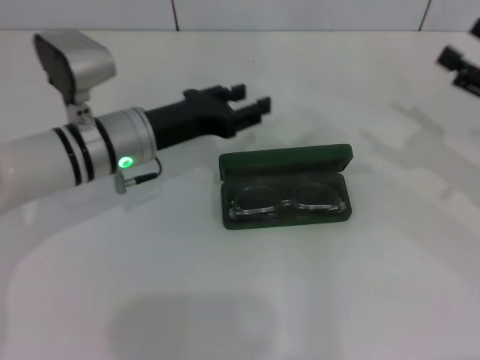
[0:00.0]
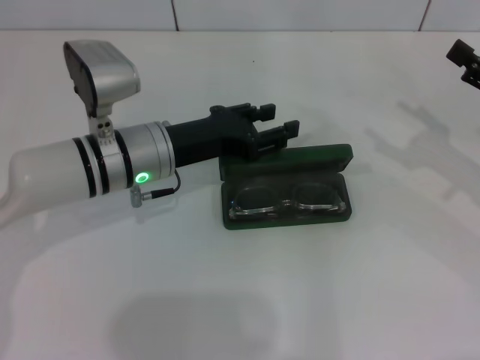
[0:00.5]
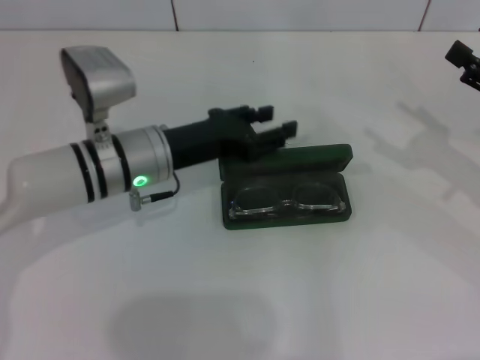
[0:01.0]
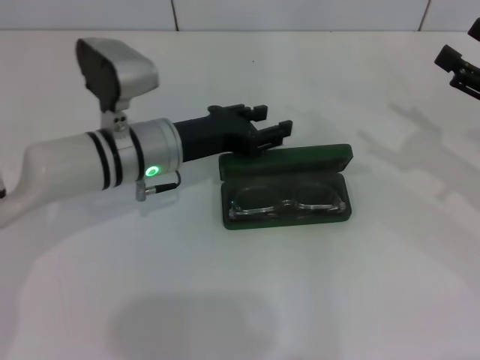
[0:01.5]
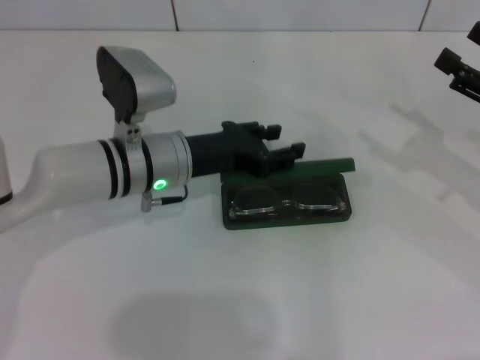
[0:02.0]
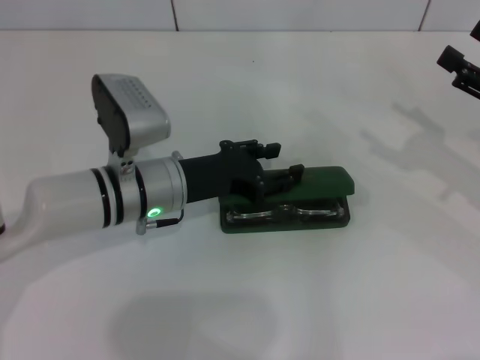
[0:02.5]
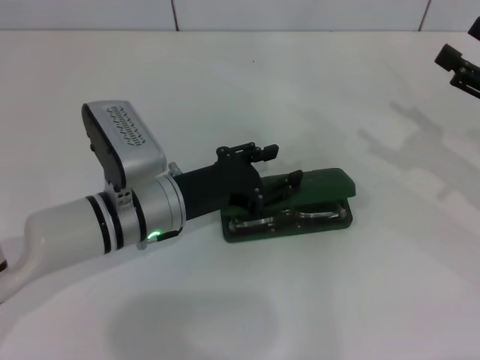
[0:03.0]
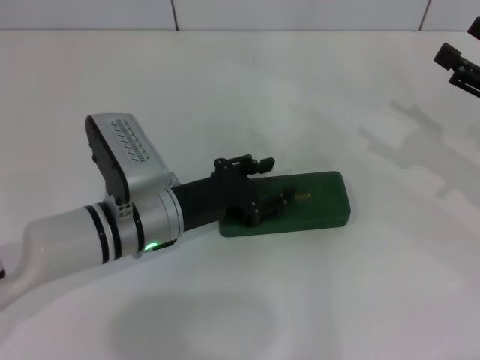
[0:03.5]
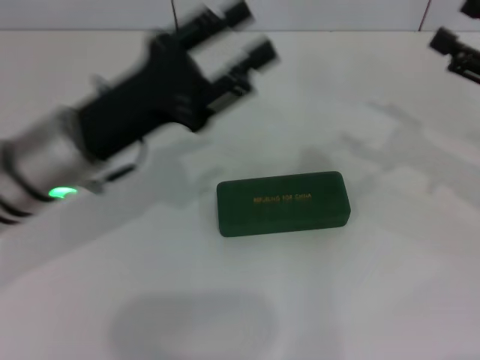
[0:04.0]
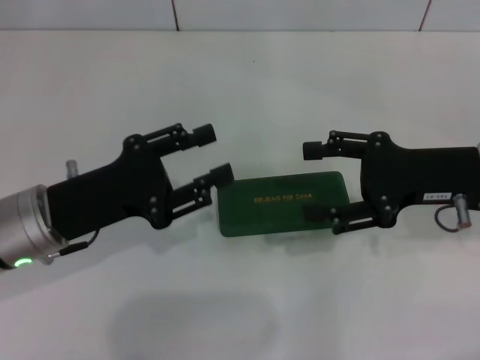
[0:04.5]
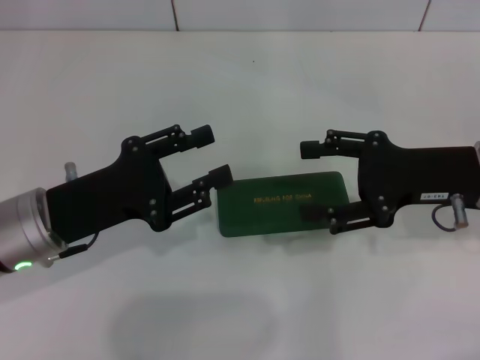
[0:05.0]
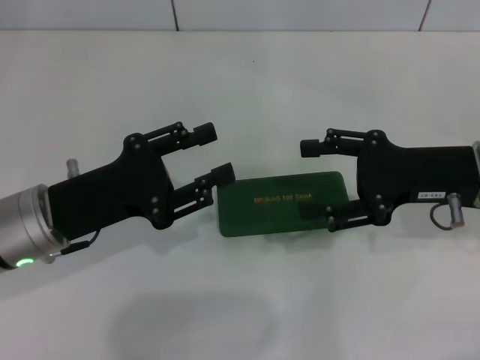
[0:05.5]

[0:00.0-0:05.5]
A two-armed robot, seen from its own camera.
Step, 0:00.0 to 0:03.5: Close the glasses case with your left hand.
0:00.0 to 0:02.0: The grippers move only a little.
0:02.0 to 0:03.5: The left gripper ends up some 5 cm from where it was.
0:03.5 to 0:05.5: The left gripper is displaced to the left and upward by approximately 10 cm, while the right gripper is displaced to the left by roughly 10 cm.

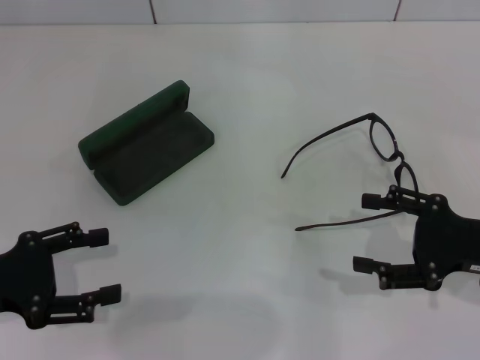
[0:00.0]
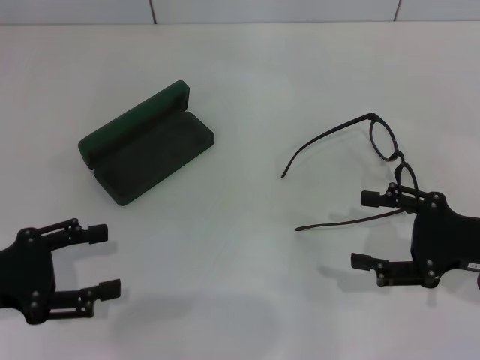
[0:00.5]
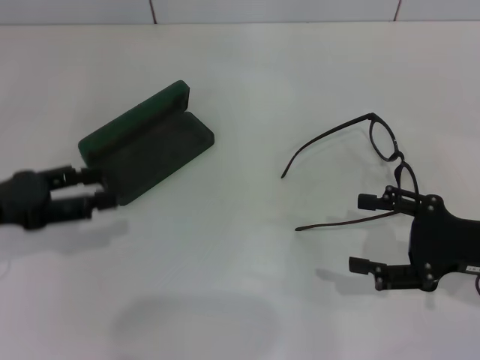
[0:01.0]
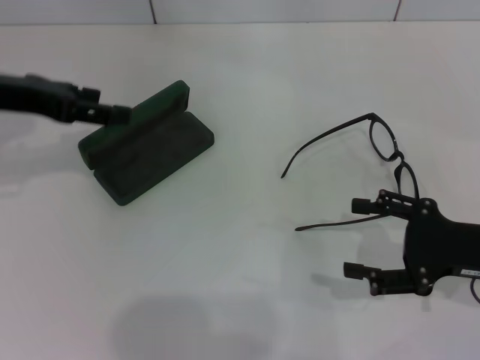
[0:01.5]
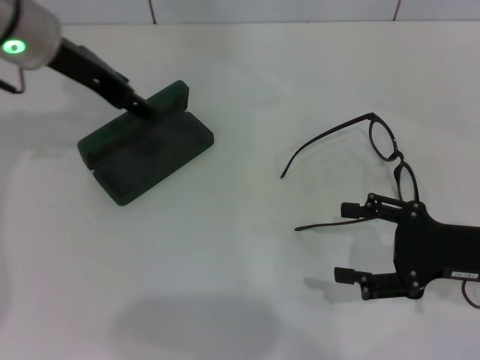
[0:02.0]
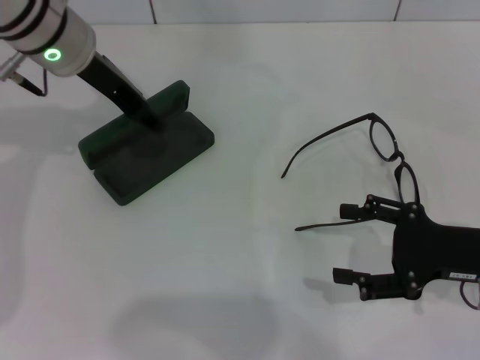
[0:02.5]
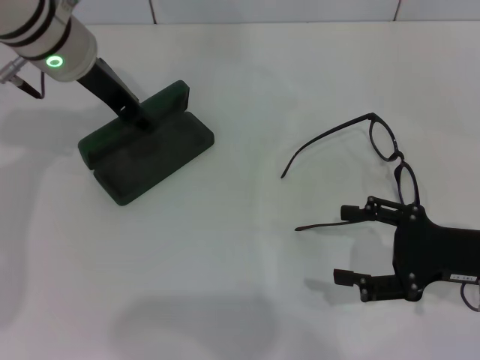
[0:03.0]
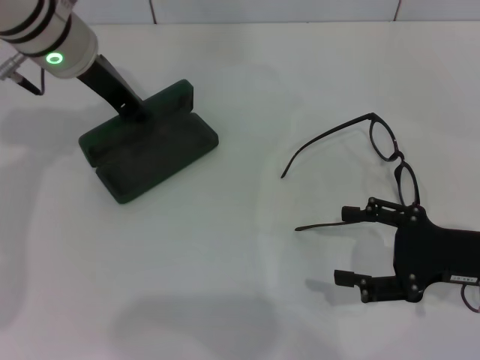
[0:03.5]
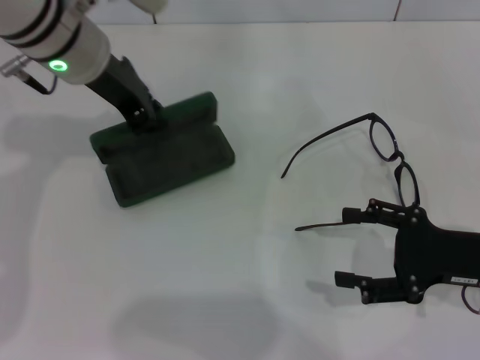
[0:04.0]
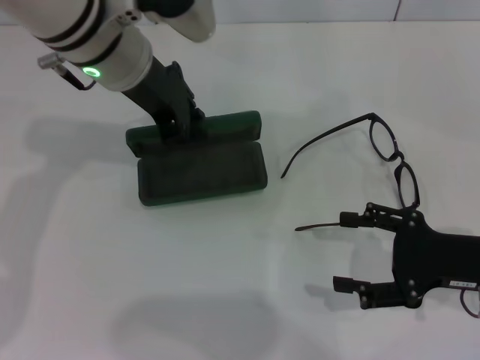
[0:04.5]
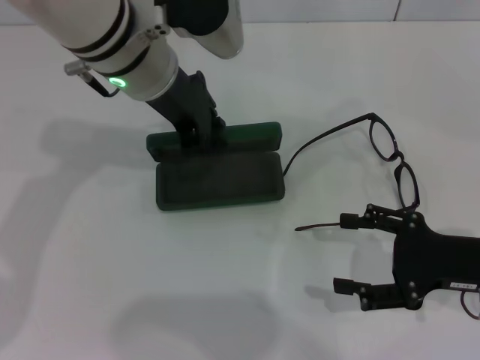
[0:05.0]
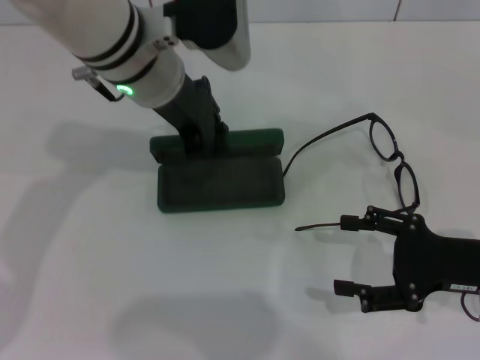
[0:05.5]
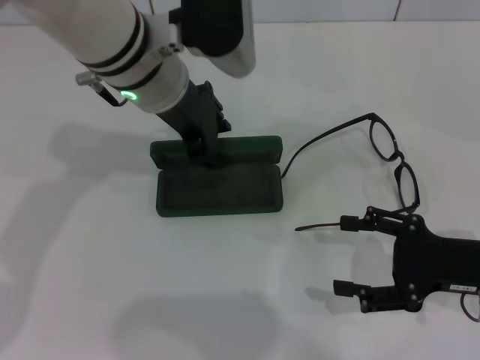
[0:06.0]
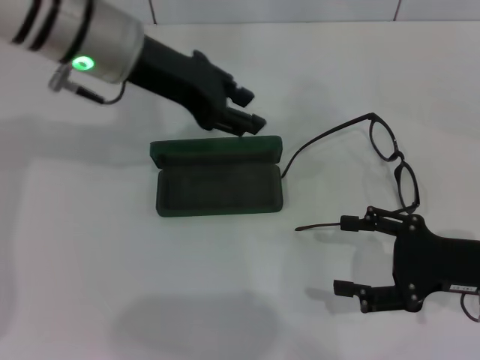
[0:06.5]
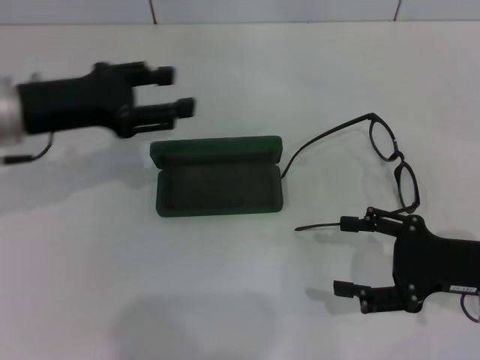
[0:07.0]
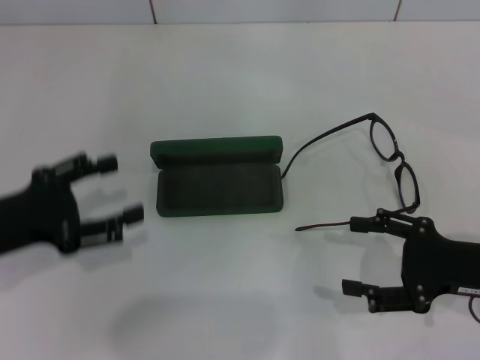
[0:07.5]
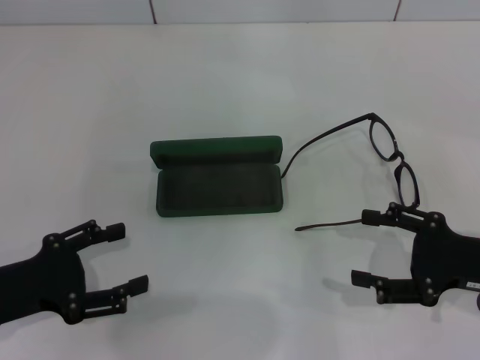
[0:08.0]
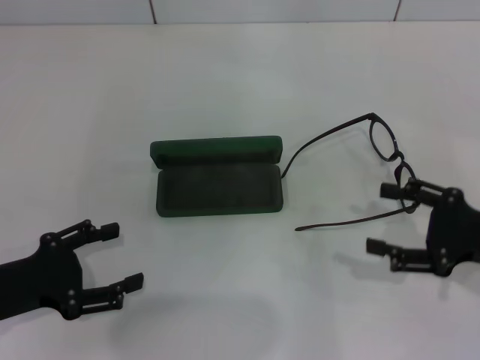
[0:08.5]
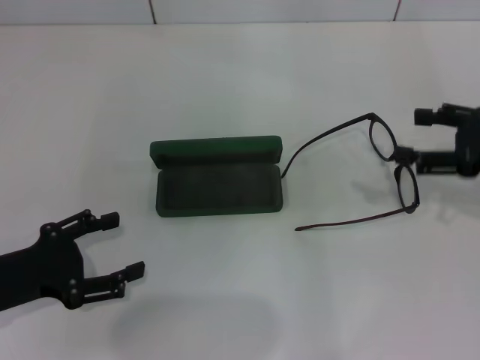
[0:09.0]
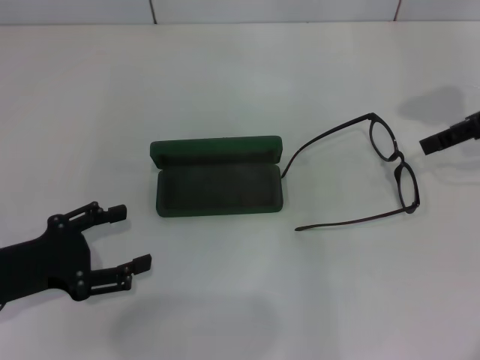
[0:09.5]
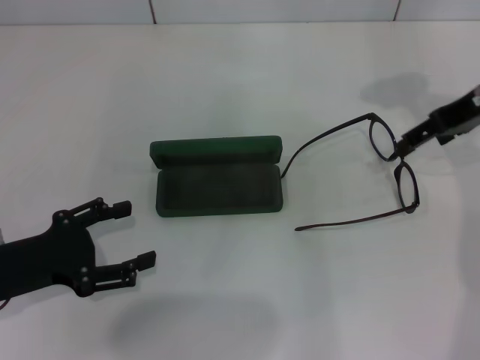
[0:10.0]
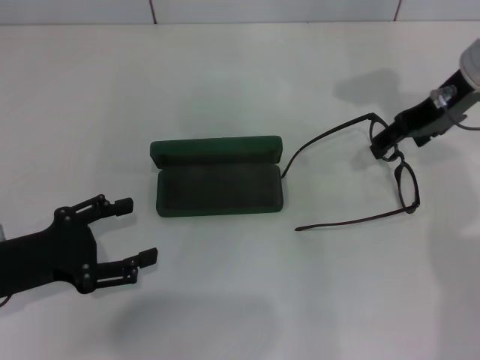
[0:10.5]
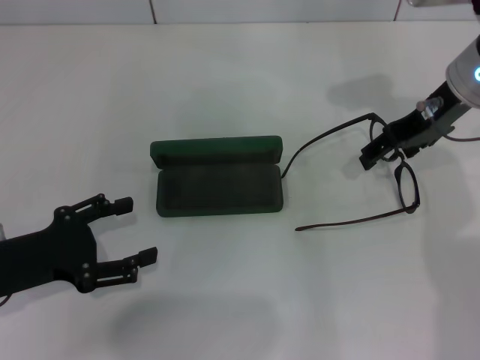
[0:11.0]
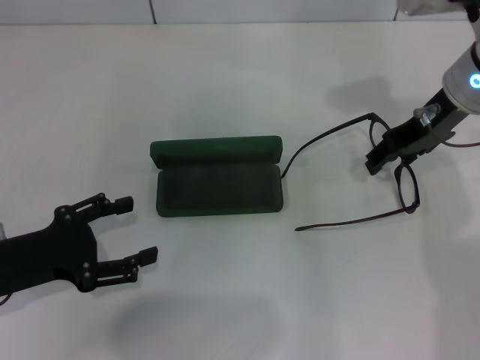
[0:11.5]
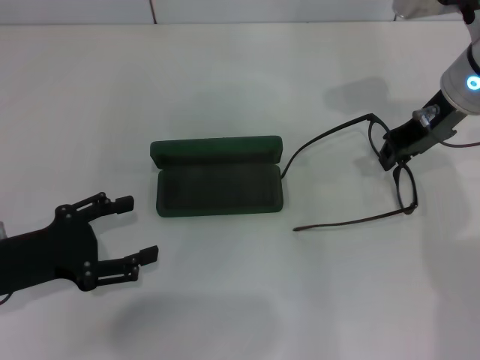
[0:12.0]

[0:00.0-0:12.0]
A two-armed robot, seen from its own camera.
Step, 0:00.0 to 0:03.0: Grab the glasses case with your left hand.
Step, 0:03.5 to 0:05.5: Place the glasses case in the center of the table with your left hand.
0:00.0 to 0:02.0: The left gripper travels forward, upward and to the right by approximately 25 cm.
0:02.0 to 0:04.0: The left gripper closes its fingers.
0:04.0 to 0:06.0: The left gripper goes some 5 cm to the right.
0:06.0 to 0:08.0: The left gripper travels to the left, backward and downward by some 30 cm, and opens its fingers.
0:08.0 to 0:10.0: The right gripper shifts roughly 20 cm forward and upward.
0:10.0 to 0:12.0: The right gripper goes some 5 cm to the left, and closes.

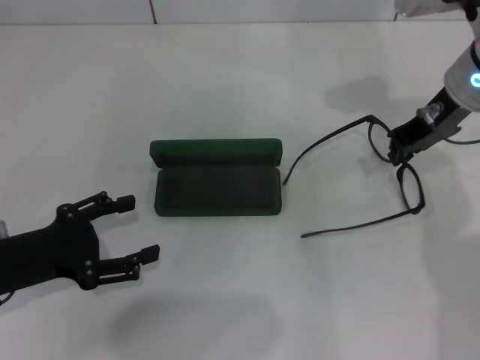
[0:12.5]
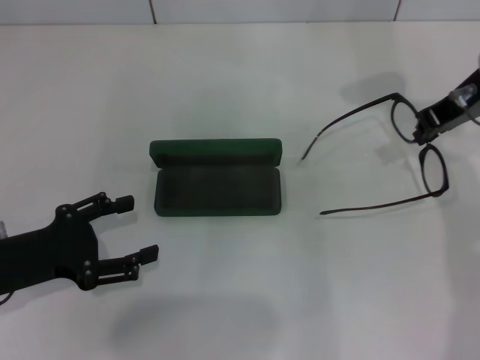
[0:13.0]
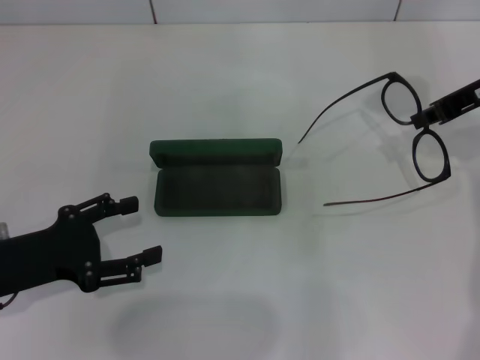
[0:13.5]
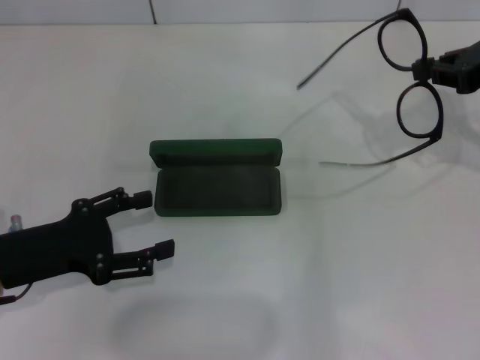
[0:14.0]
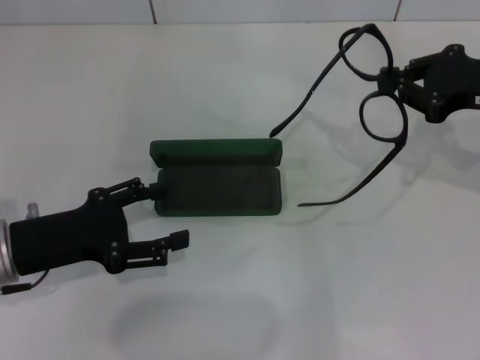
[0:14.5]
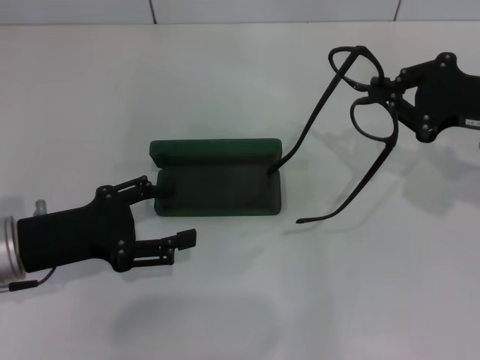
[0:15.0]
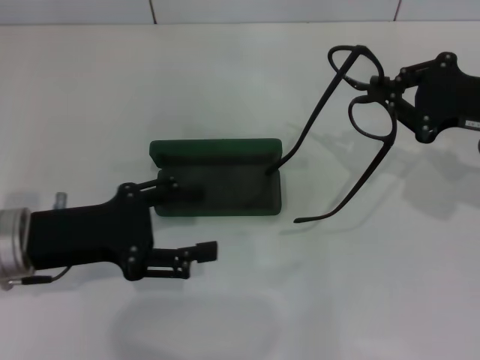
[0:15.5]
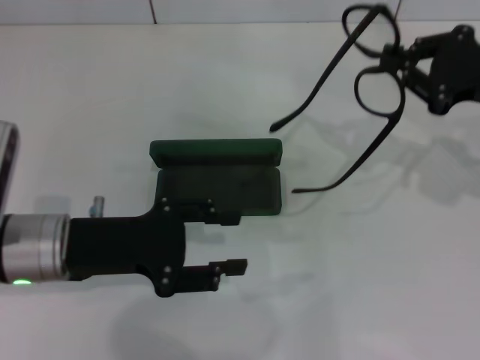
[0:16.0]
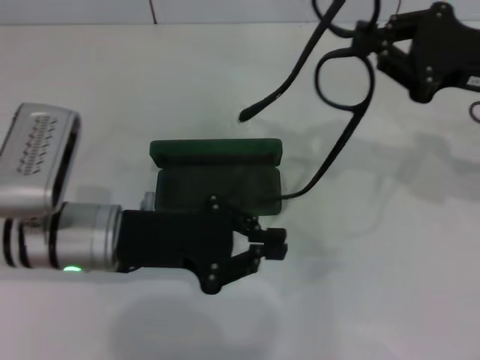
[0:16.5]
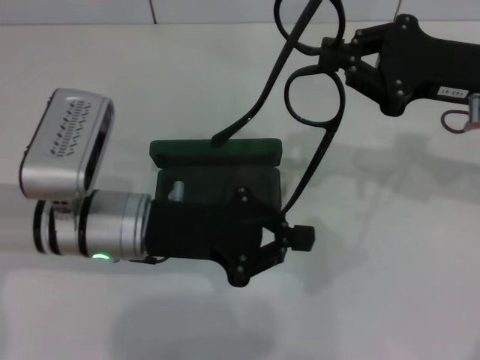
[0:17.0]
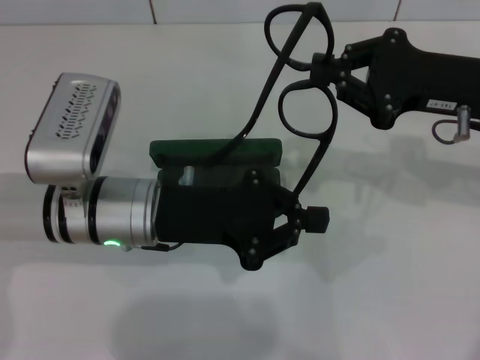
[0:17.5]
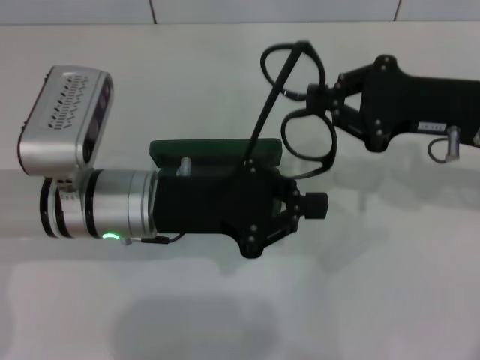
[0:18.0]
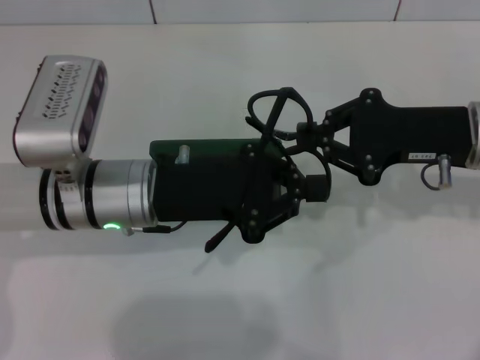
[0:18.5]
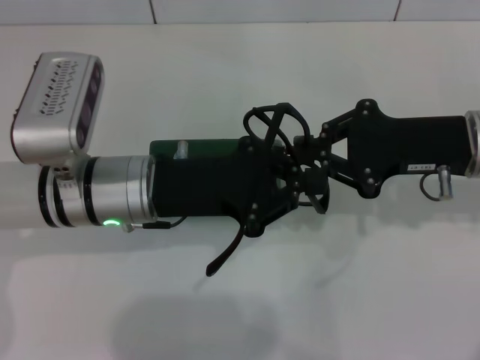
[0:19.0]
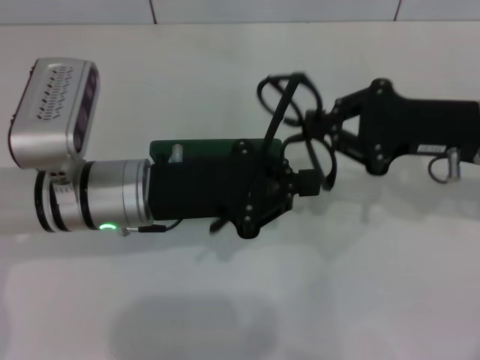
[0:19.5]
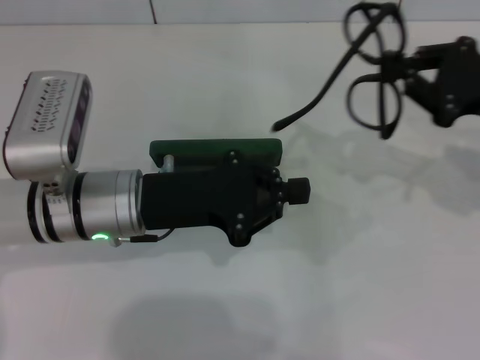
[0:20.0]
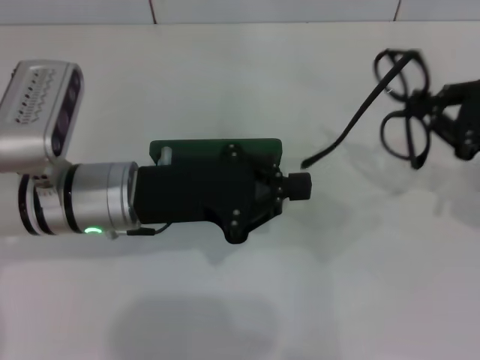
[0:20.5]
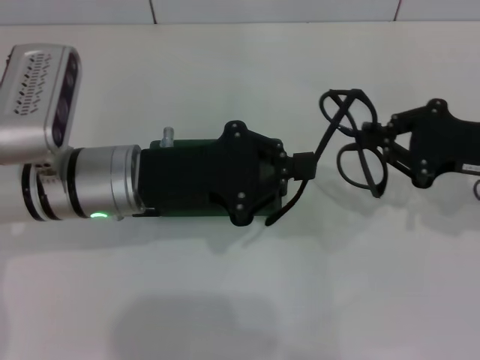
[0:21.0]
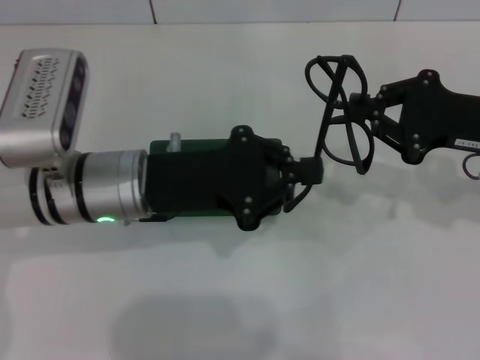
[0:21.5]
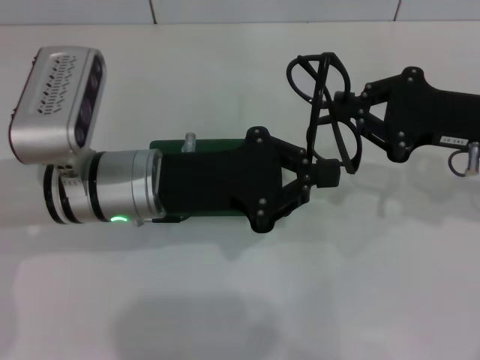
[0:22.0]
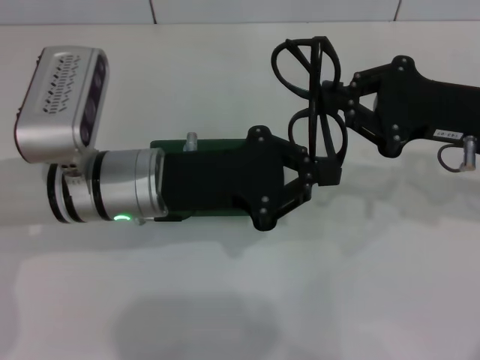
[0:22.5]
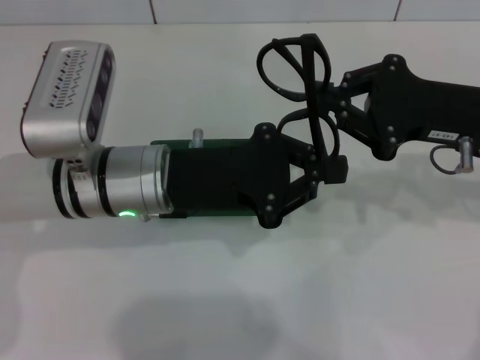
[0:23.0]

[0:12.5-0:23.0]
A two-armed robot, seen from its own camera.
Step, 0:12.5 to 0:23.0: Fold the frame with your left hand.
0:12.5 to 0:14.5: The right gripper is displaced to the right and backward by about 10 cm.
0:14.5 to 0:16.5: The left gripper travels to the right by some 10 cm, and closes up.
0:16.5 to 0:19.0: The left gripper closes, while the right gripper moves some 5 cm.
0:19.0 to 0:21.0: The right gripper moves to the right, some 5 cm.
0:21.0 to 0:23.0: The right gripper changes place by approximately 5 cm.
